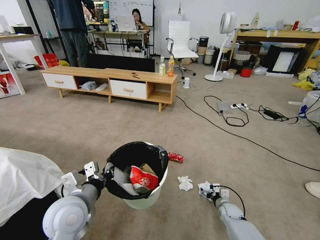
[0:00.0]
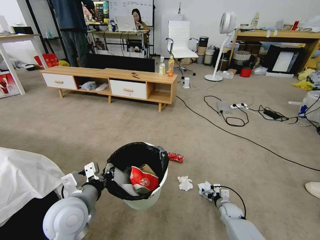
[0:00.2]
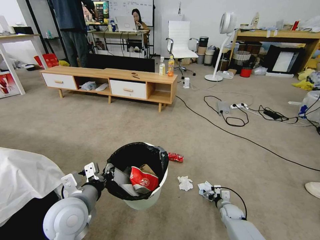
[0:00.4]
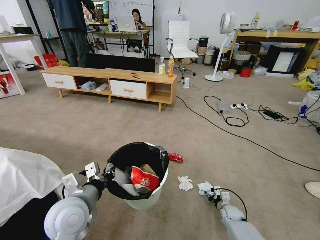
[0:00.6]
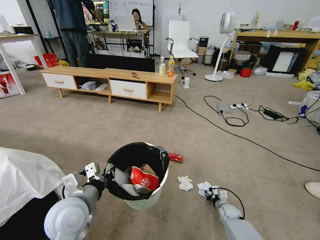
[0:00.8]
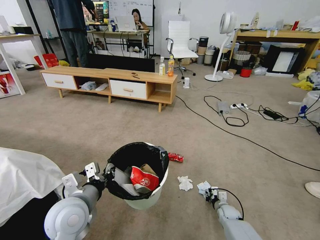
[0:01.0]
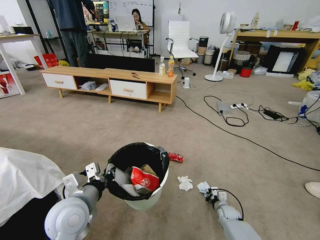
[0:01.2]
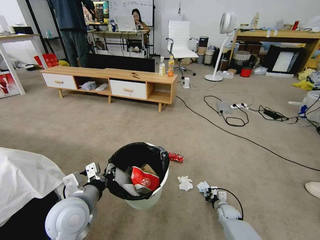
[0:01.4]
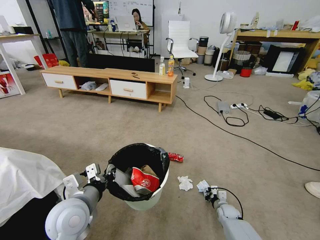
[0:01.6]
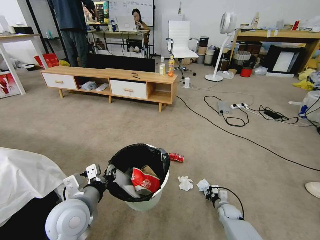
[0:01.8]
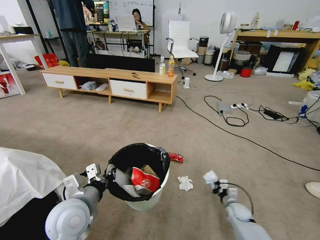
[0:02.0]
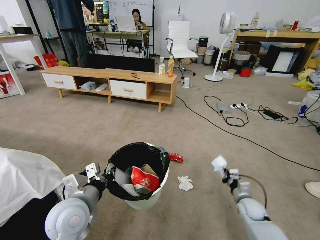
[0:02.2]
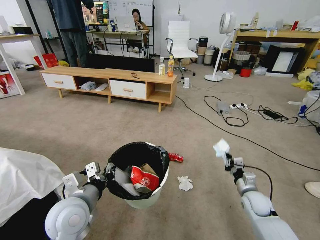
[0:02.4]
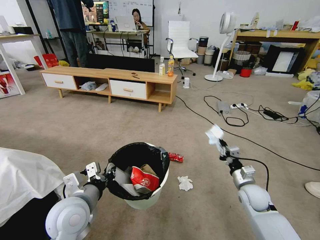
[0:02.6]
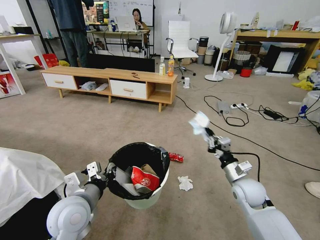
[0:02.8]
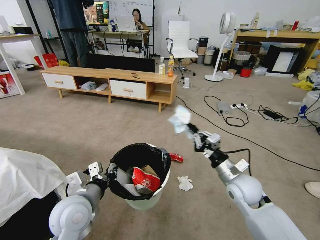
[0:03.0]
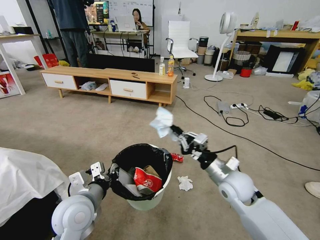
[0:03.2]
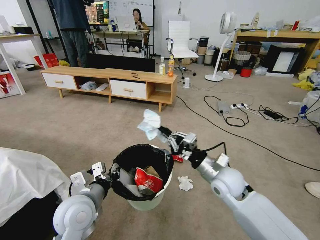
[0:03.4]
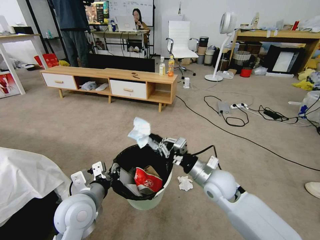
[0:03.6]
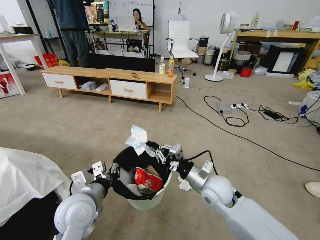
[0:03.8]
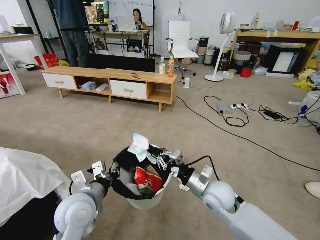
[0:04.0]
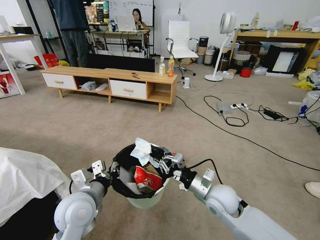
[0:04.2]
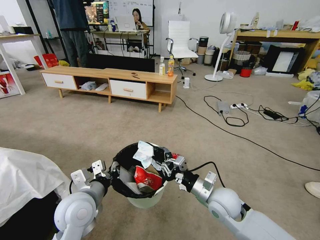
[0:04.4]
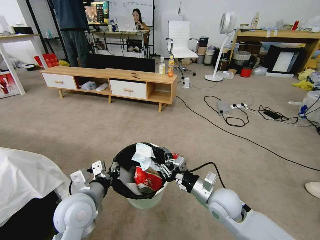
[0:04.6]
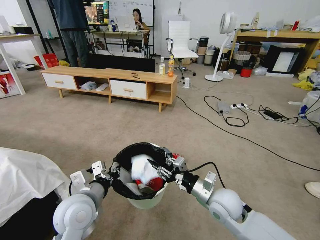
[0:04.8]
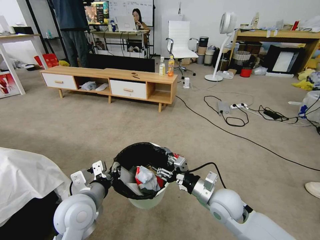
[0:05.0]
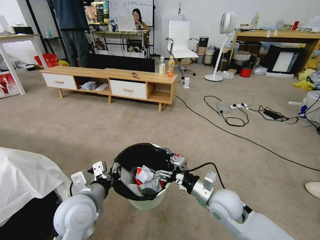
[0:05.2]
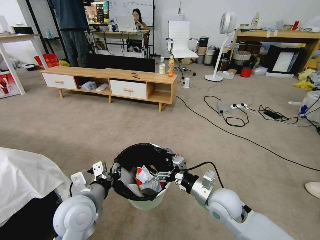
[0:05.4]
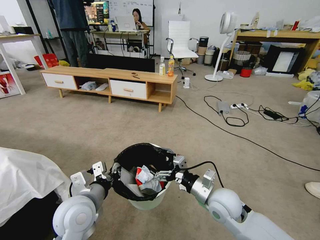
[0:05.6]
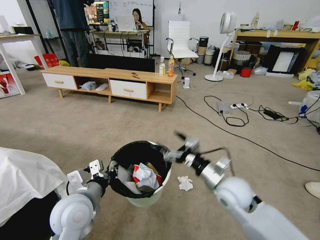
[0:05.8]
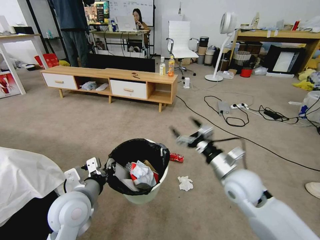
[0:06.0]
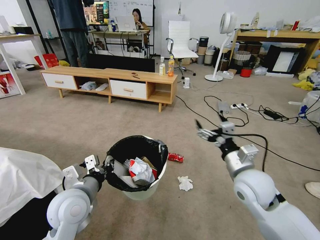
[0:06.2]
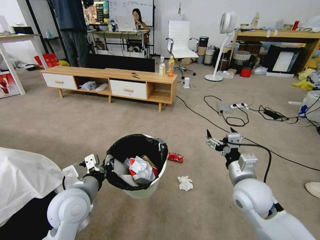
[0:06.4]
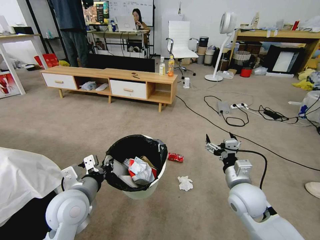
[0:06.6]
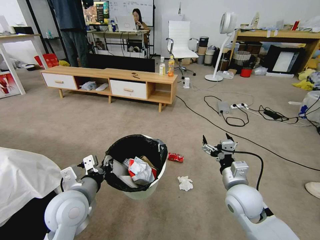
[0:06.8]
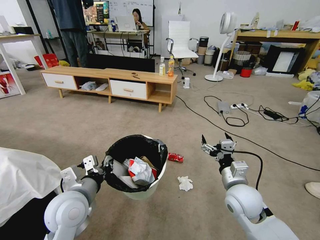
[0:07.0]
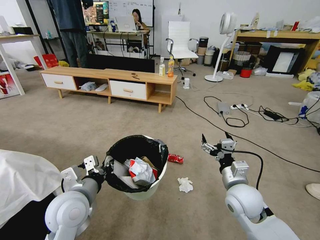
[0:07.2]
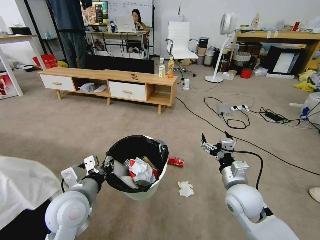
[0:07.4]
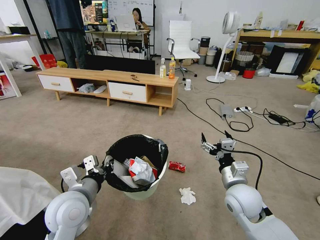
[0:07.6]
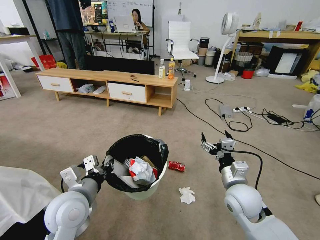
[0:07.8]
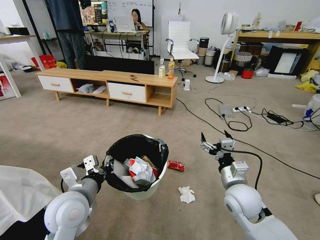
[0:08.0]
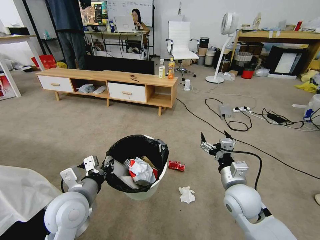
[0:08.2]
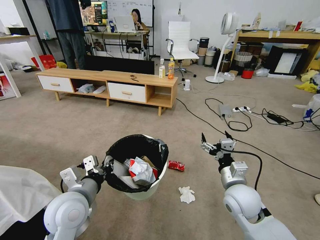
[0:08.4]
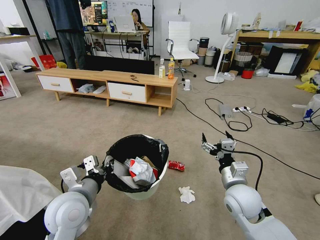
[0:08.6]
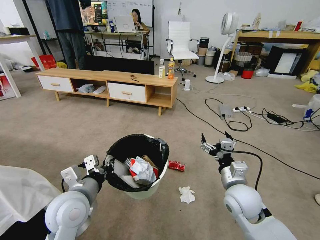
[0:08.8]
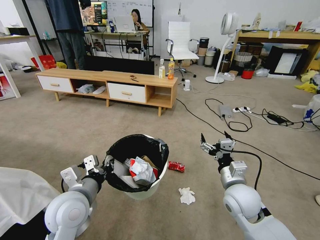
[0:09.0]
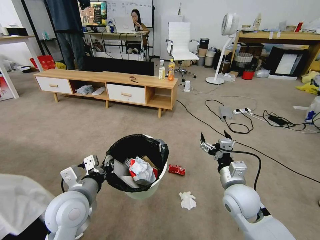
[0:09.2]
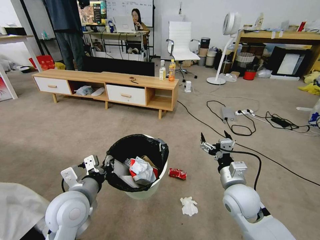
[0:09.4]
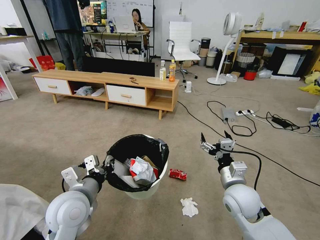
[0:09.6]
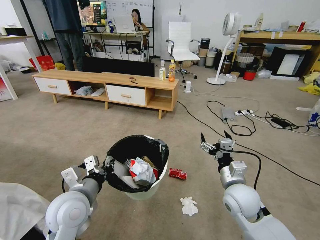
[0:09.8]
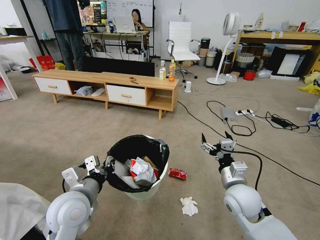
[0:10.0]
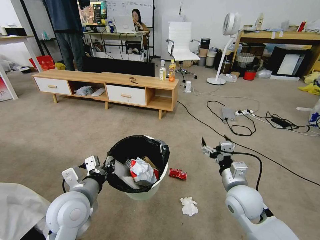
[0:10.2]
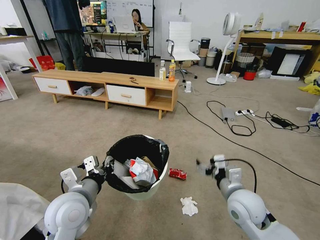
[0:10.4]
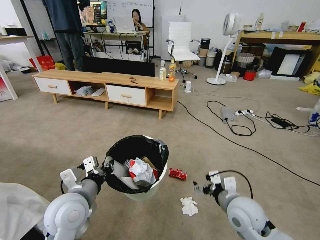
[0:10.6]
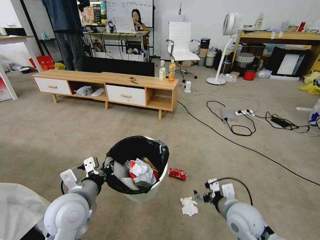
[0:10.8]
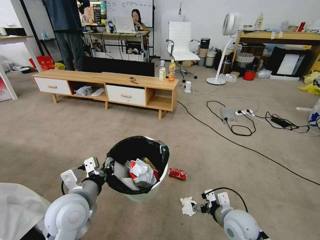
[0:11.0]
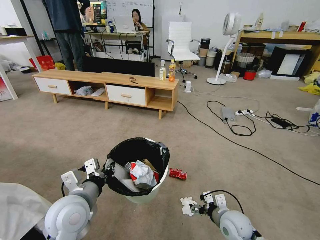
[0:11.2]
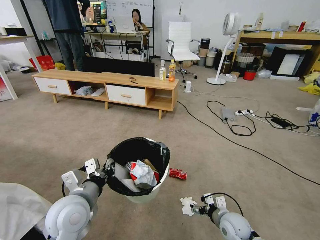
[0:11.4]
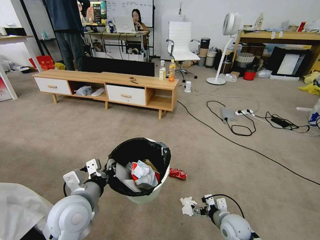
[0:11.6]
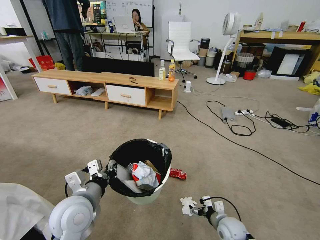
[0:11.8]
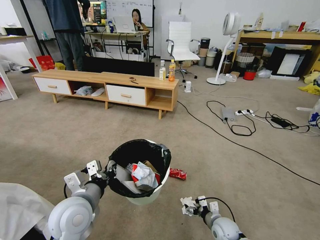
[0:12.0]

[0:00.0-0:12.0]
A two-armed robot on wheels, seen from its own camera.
Task of the whole recording: Pick up the trash bin and place the garbage on the floor into it.
0:00.0 to 0:01.6: The right gripper closes up.
0:01.6 to 0:03.0: The right gripper heads upward, covering some 30 cm.
0:03.0 to 0:04.4: The right gripper heads to the left, covering roughly 5 cm.
0:04.4 to 0:06.0: The right gripper shifts about 10 cm upward, and opens its fingers.
0:06.0 to 0:07.6: The right gripper heads downward, covering about 5 cm.
0:07.6 to 0:09.0: The two grippers keep their place.
0:10.4 to 0:12.0: The right gripper shifts about 25 cm downward.

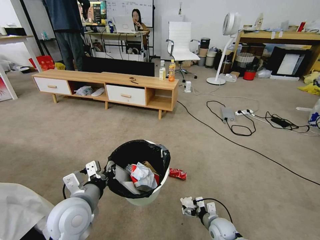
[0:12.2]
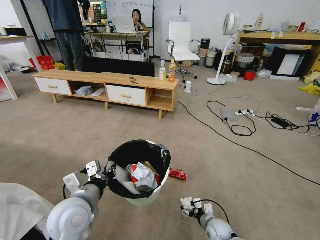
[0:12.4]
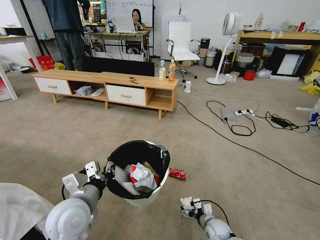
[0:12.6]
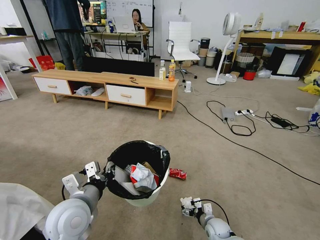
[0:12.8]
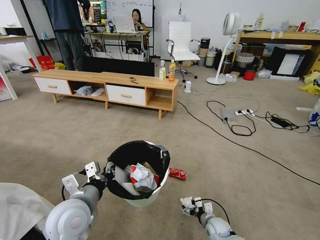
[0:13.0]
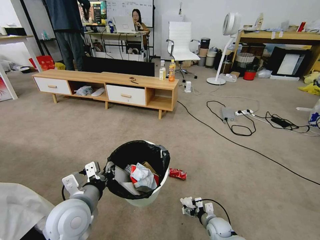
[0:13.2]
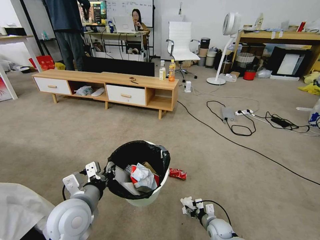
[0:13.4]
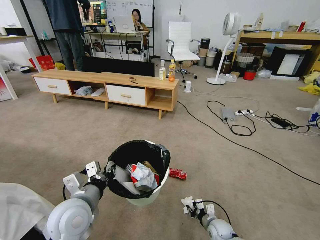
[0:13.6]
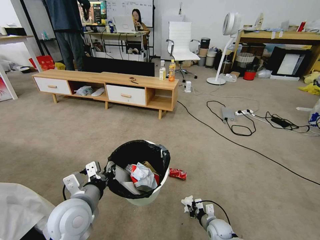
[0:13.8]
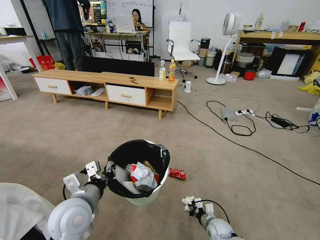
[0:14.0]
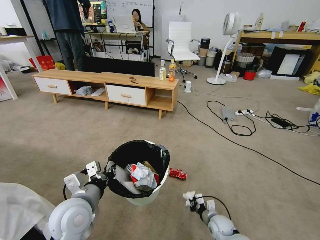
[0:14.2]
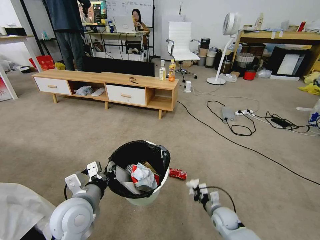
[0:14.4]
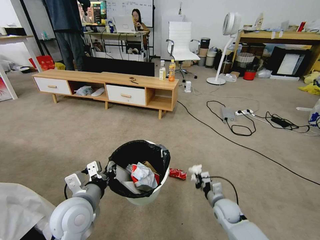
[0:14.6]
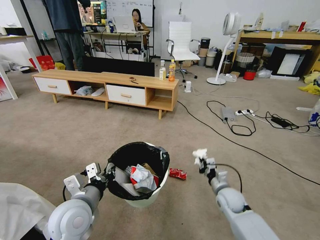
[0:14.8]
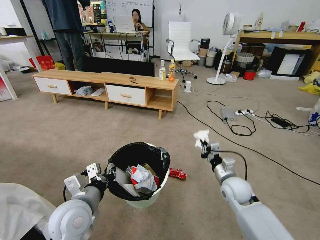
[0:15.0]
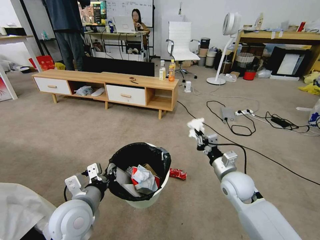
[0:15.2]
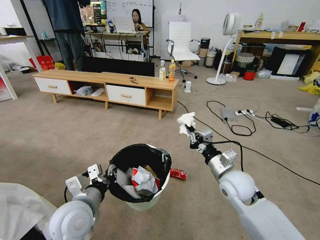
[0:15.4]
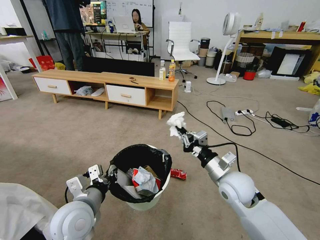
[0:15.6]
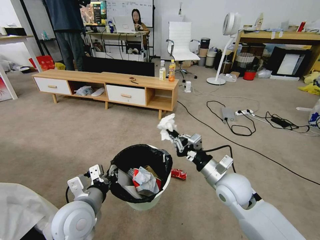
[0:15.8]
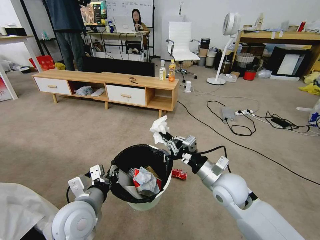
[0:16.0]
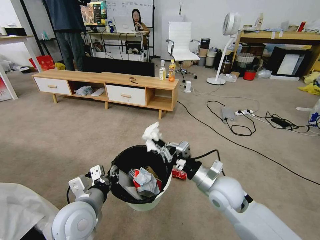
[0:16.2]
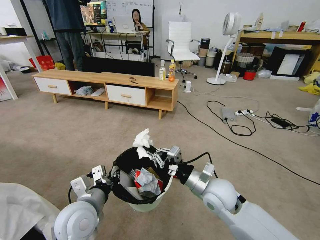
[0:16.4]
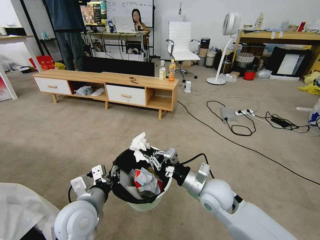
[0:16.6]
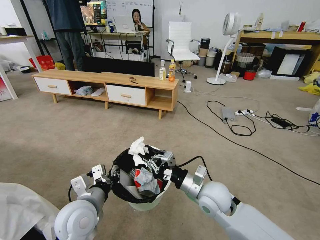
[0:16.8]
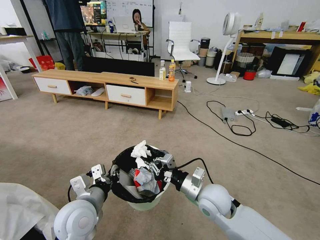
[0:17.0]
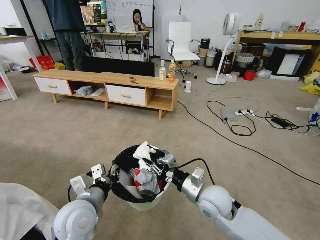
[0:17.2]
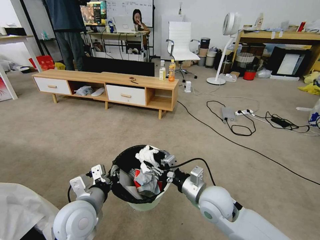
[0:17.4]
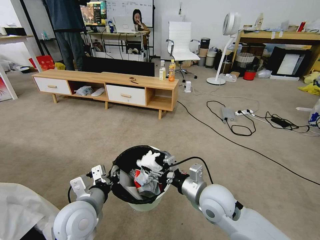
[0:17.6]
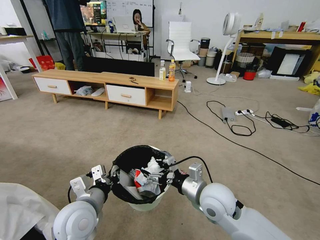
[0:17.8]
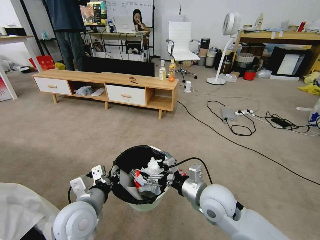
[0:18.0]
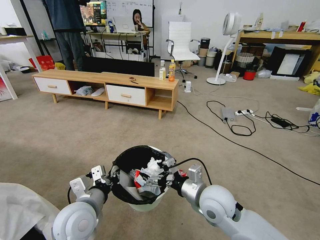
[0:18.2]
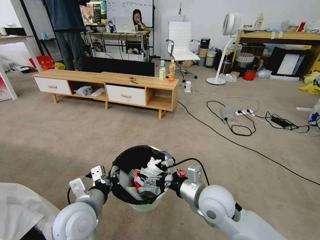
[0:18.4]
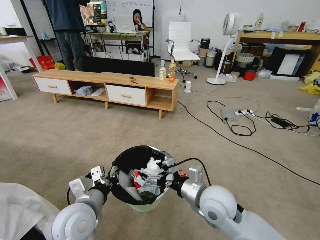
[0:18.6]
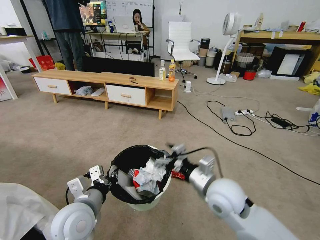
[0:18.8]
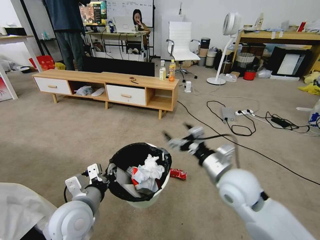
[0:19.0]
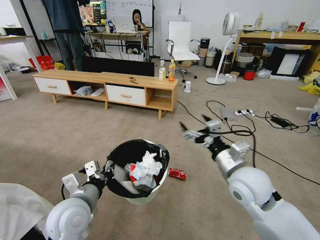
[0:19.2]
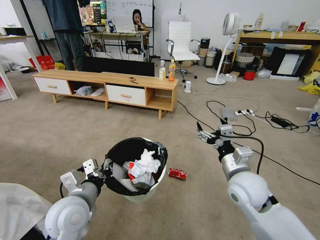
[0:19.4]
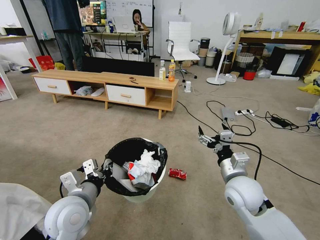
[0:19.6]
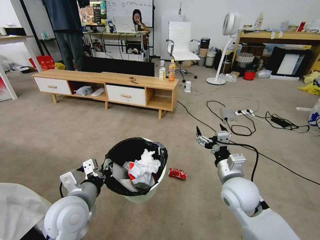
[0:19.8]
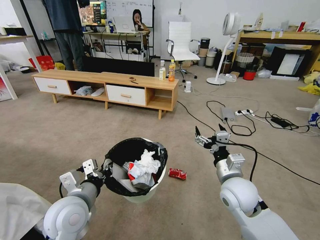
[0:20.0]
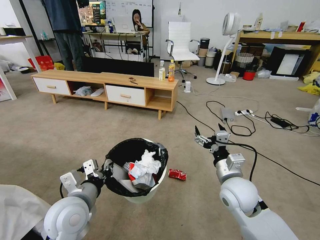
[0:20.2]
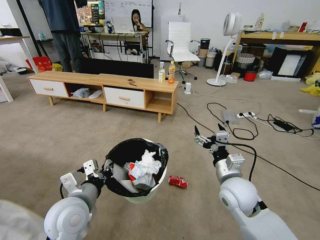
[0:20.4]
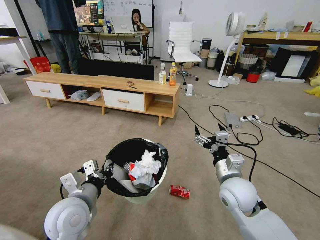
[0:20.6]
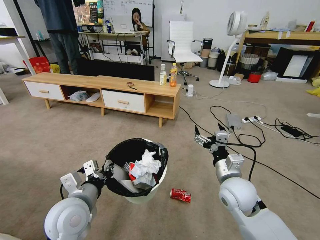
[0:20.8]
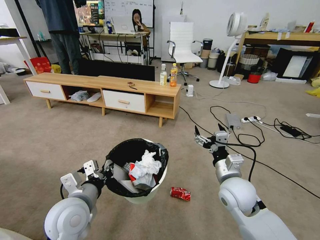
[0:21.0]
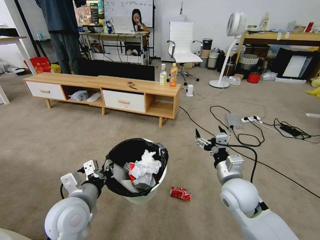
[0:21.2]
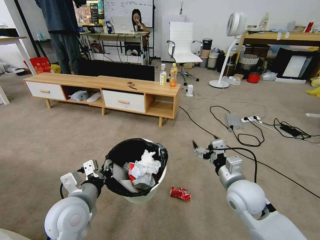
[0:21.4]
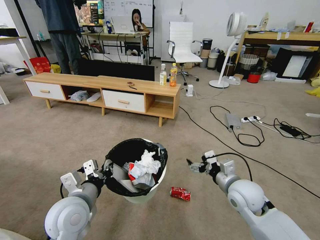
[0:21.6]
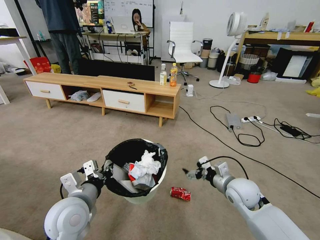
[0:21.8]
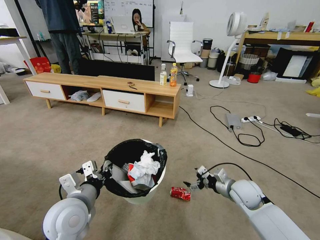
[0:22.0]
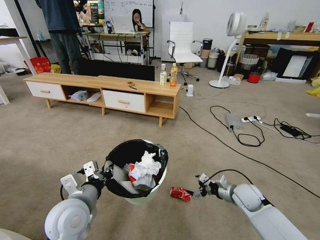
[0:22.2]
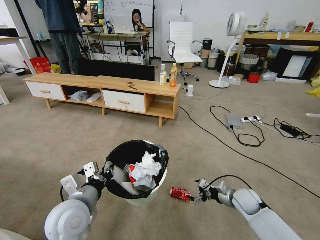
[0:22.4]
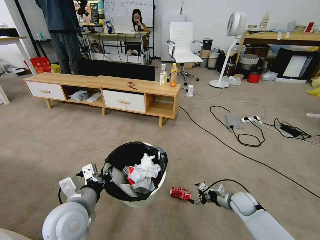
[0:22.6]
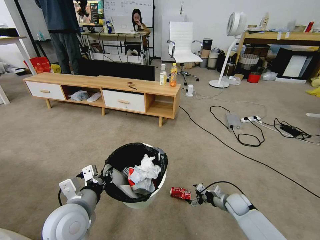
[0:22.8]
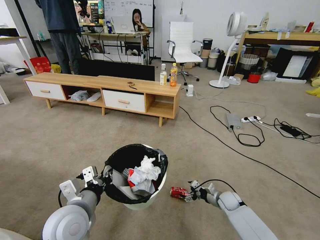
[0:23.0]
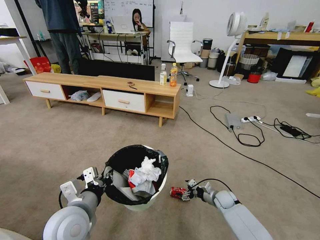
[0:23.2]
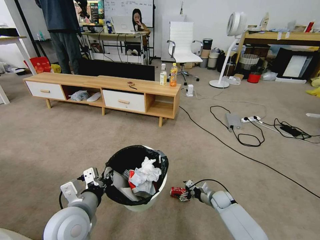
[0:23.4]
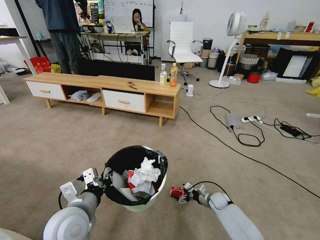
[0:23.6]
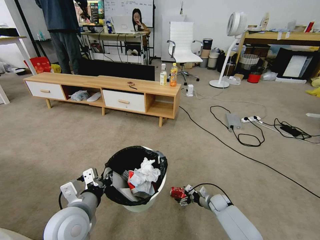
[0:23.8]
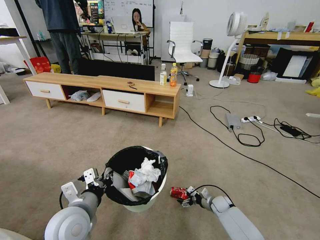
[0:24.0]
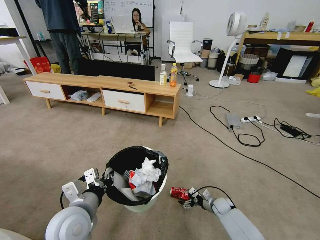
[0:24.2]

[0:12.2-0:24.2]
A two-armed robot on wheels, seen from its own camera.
Task of the whole recording: Pick up the trash bin and place the garbage on the floor into it.
0:12.2 to 0:13.8: The right gripper closes.
0:13.8 to 0:15.2: The right gripper is displaced upward by roughly 25 cm.
0:15.2 to 0:16.6: The right gripper moves to the left, approximately 10 cm.
0:16.6 to 0:18.2: The right gripper opens.
0:18.2 to 0:19.8: The right gripper shifts about 5 cm to the right.
0:21.2 to 0:22.6: The right gripper heads downward and to the right, covering roughly 25 cm.
0:22.6 to 0:24.2: The right gripper travels downward by roughly 10 cm.
